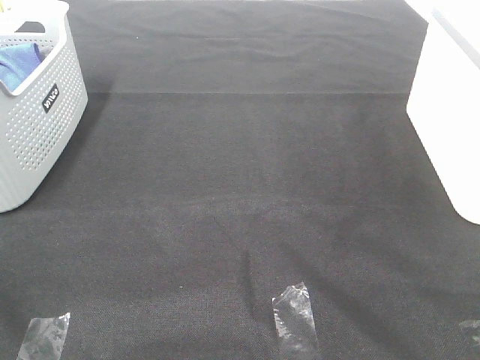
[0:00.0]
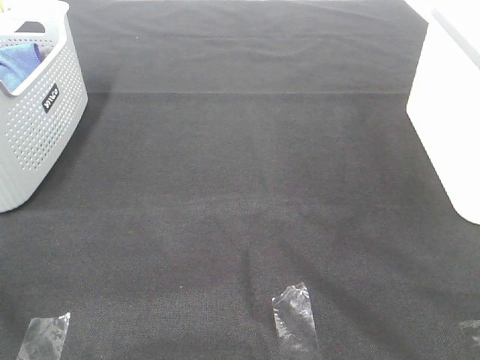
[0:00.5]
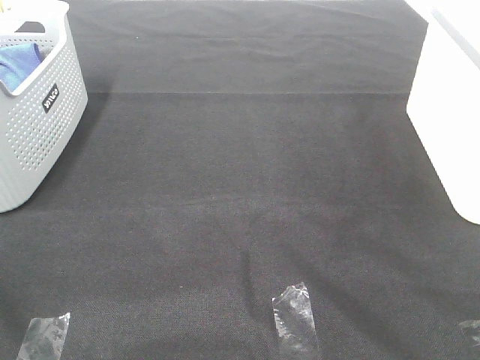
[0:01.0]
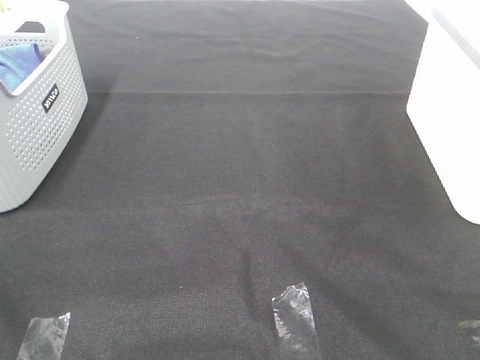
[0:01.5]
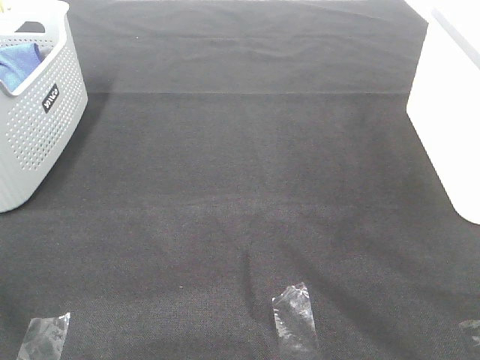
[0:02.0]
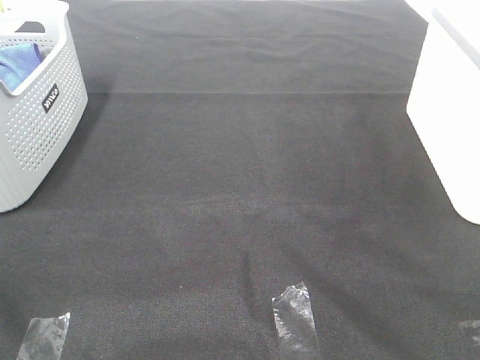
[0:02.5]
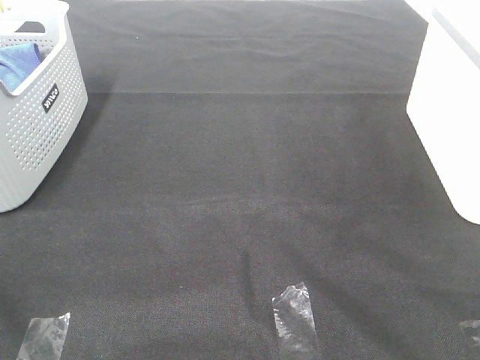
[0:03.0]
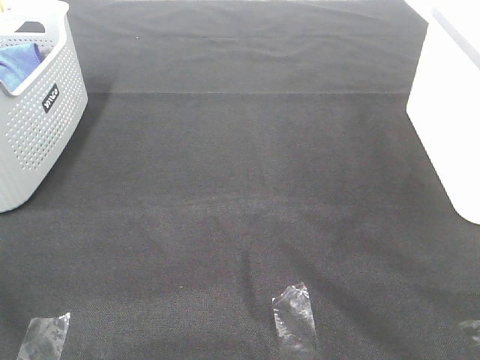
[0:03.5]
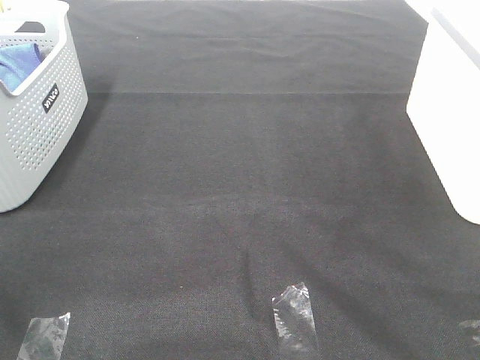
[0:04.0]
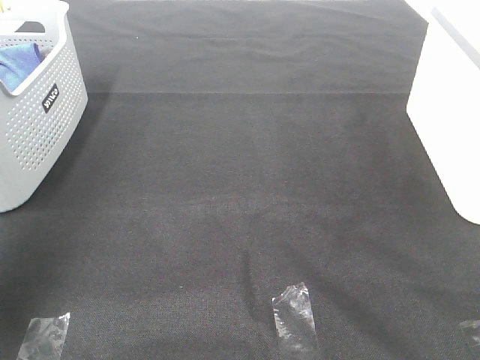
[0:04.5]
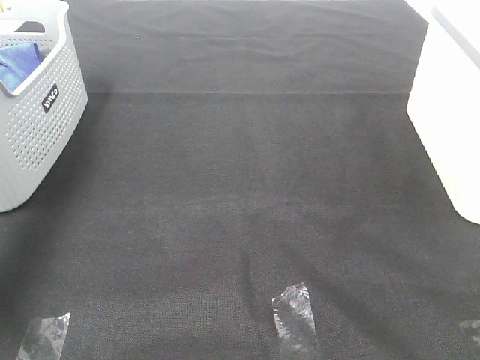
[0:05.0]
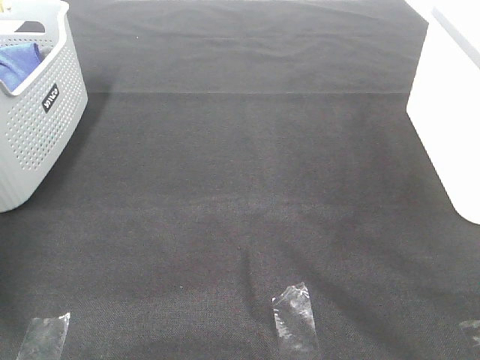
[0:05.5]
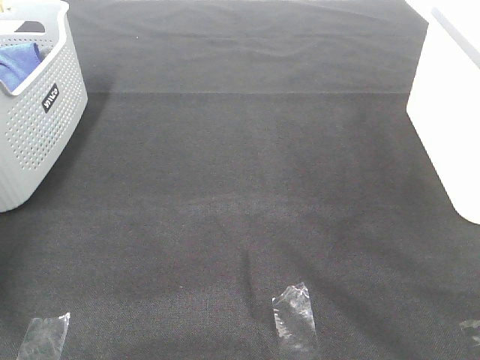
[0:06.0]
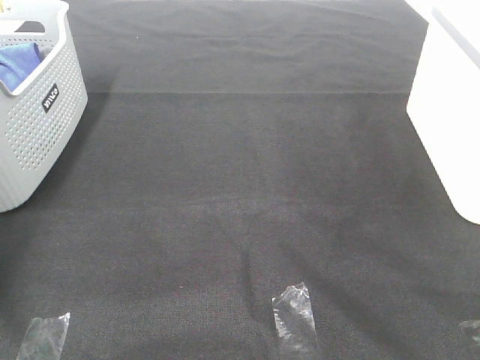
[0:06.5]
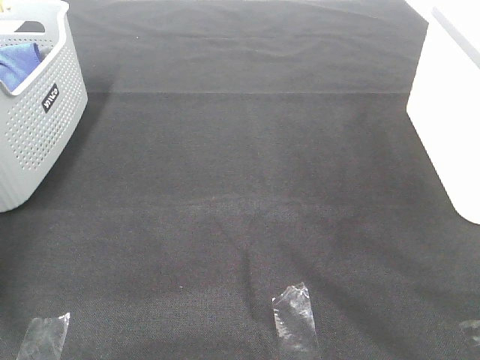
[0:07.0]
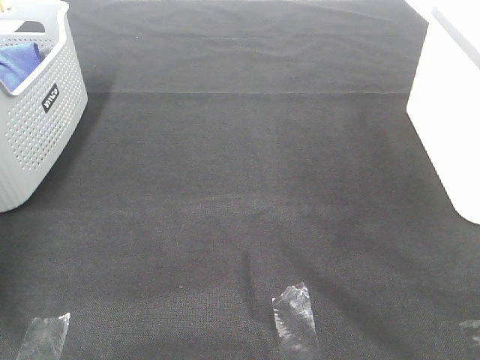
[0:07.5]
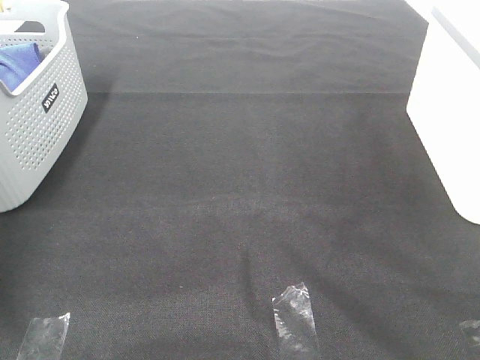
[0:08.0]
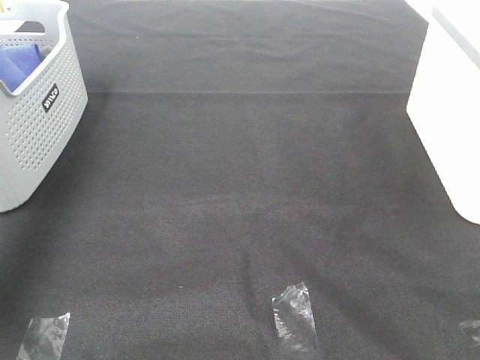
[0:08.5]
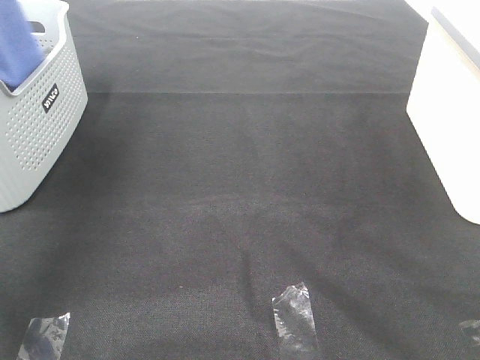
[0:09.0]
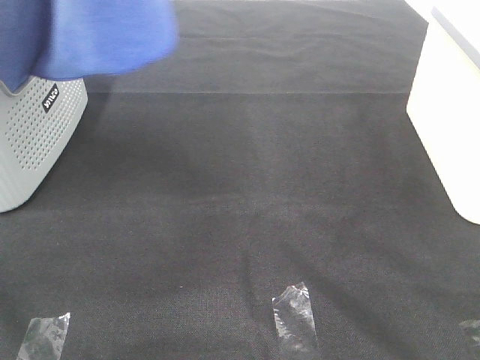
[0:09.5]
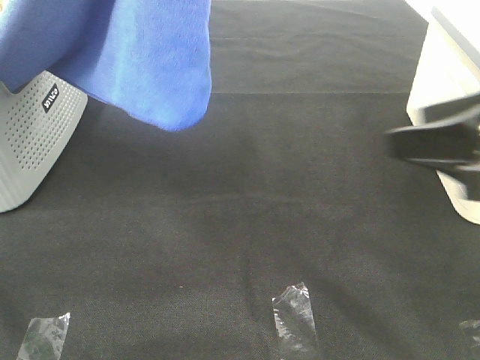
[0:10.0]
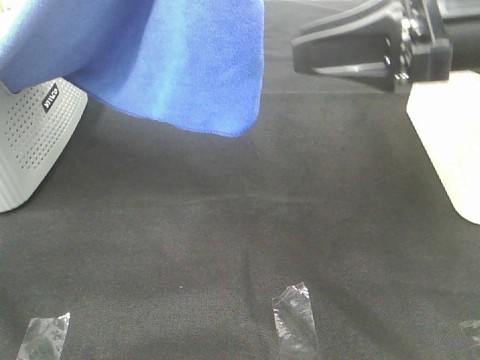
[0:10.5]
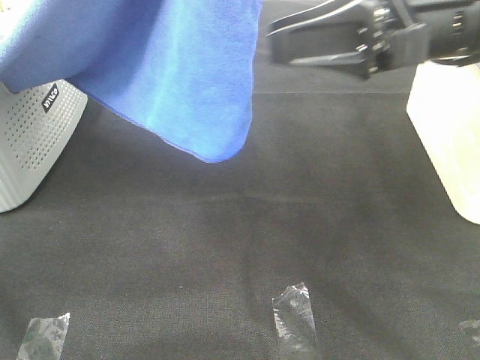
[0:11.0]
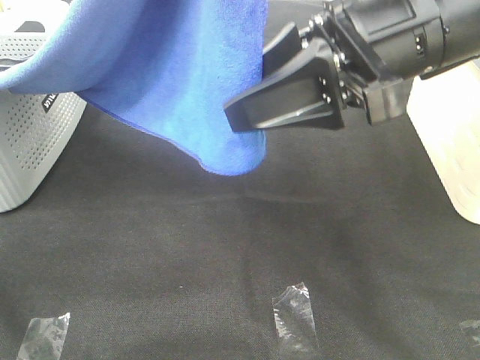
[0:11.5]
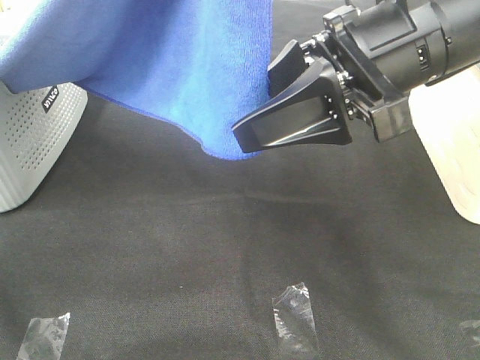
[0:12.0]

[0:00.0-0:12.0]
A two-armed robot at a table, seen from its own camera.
Task of the whole recording: Remove the towel and place it.
0:00.0 to 0:02.0: The two grippers keep their place.
0:04.0 to 0:06.0: The left gripper heads forward, covering some 50 cm.
0:08.0 to 0:10.0: The left gripper shifts about 50 cm to the right, upward and backward. Meanwhile the right gripper goes about 20 cm forward.
0:10.0 to 0:12.0: The right gripper is displaced to the left and forward by about 15 cm.

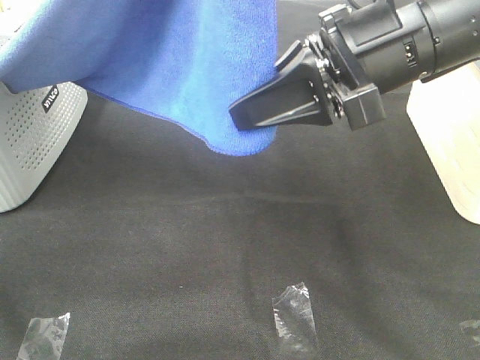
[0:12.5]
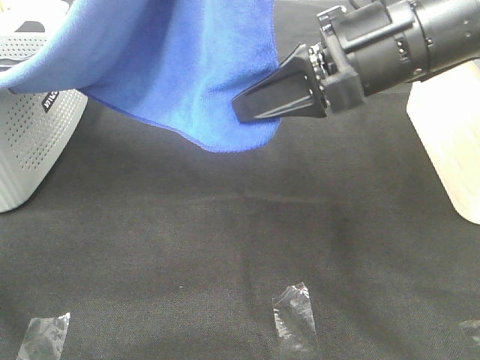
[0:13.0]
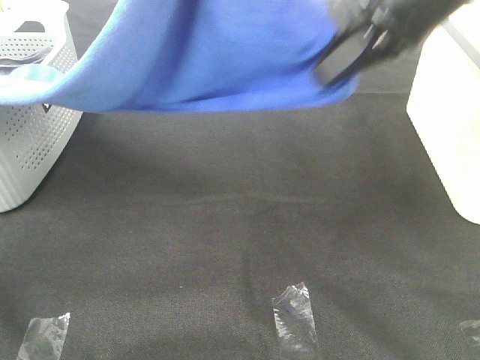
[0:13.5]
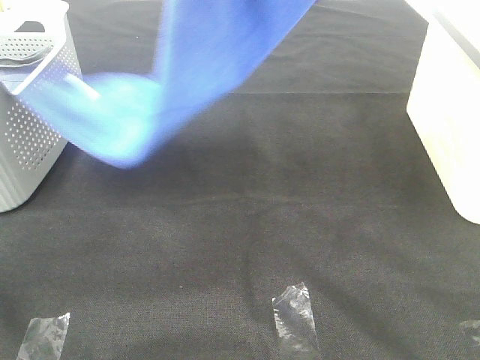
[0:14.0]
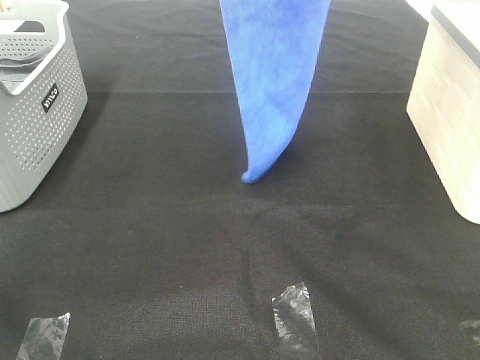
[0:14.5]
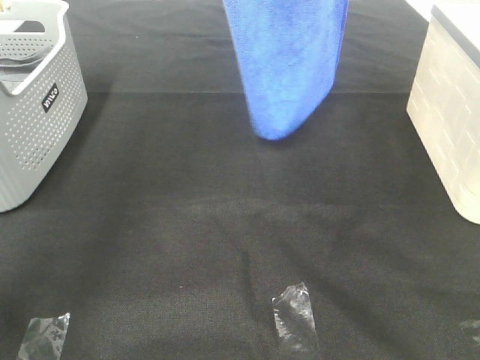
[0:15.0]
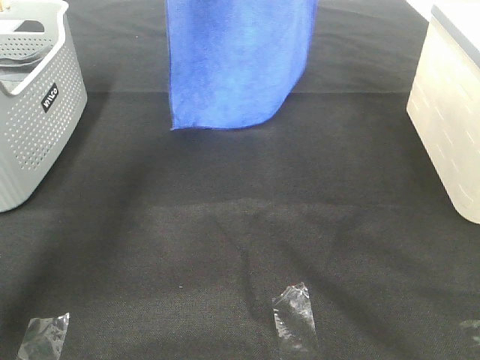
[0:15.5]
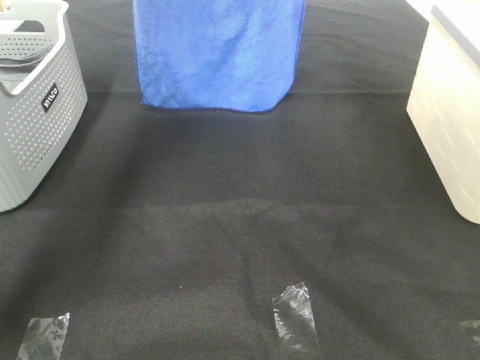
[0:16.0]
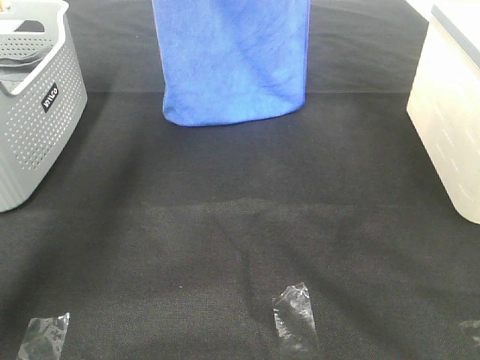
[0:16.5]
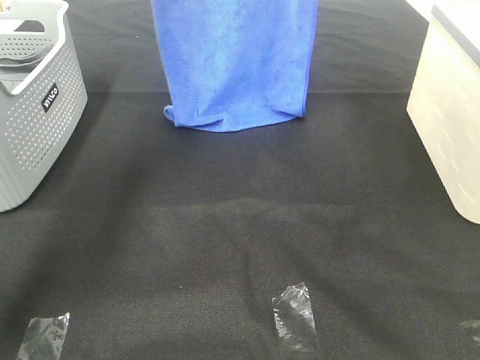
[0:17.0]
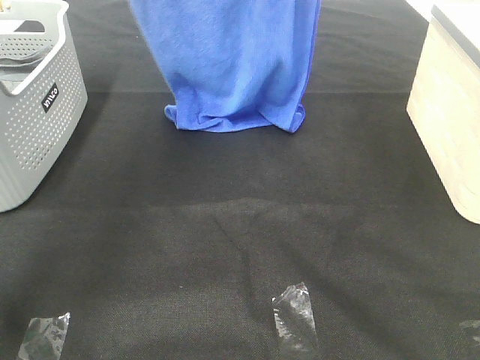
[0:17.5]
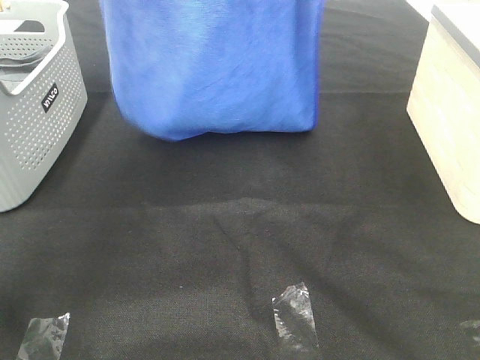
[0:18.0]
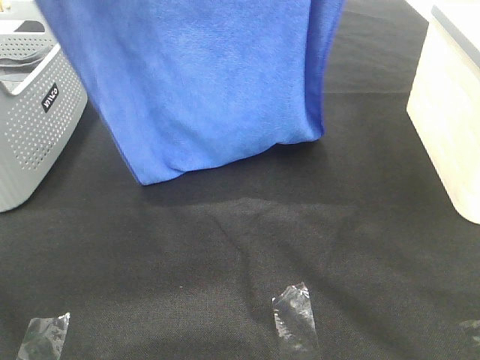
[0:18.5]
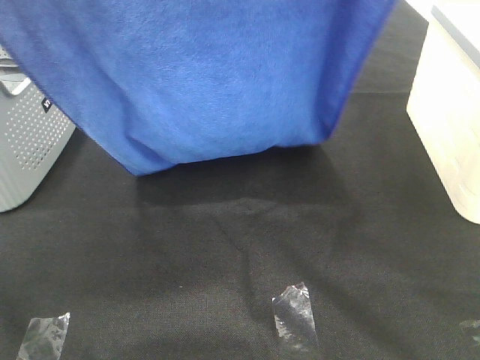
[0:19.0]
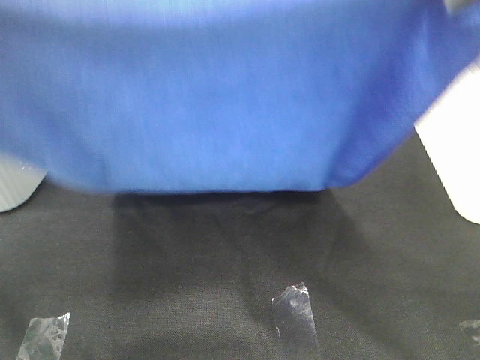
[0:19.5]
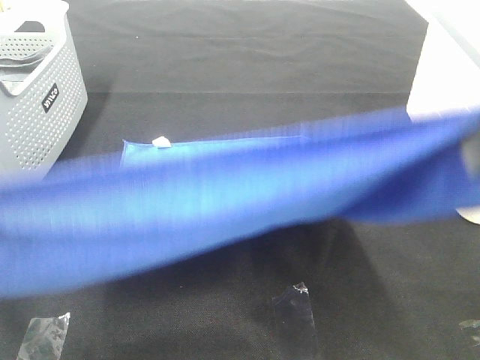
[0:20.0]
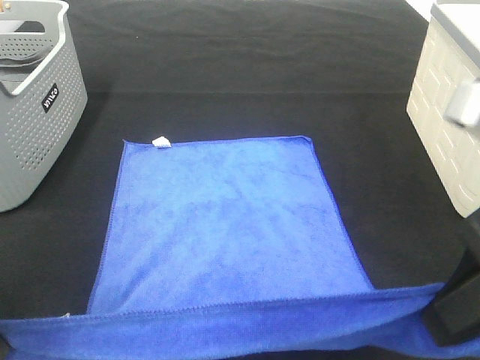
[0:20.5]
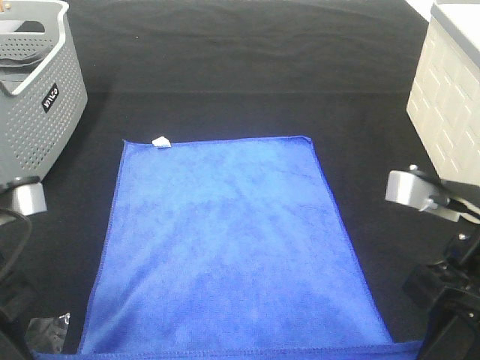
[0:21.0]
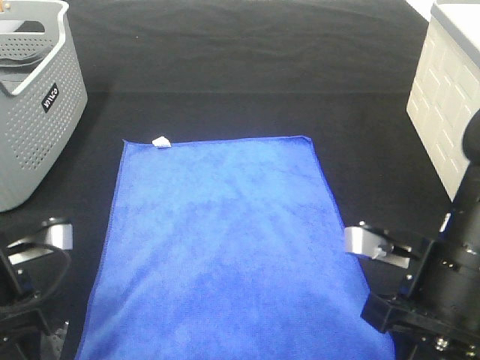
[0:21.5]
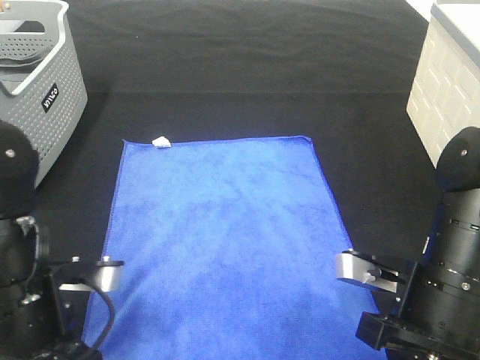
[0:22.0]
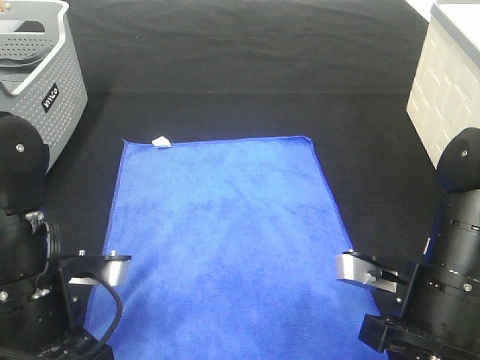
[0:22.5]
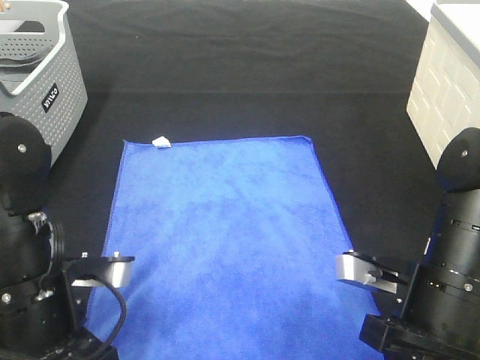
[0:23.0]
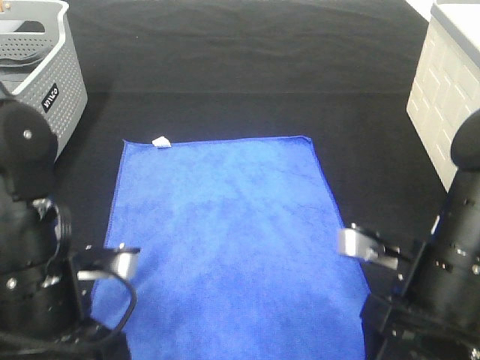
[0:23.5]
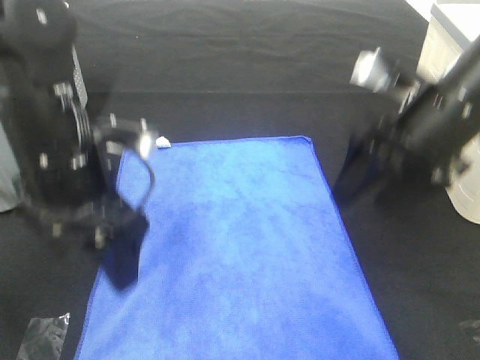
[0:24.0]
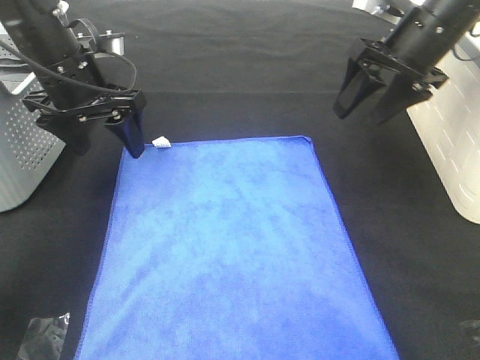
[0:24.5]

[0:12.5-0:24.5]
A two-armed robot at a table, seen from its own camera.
Task of the whole recording: Remove the towel and place it.
Step, 0:13.5 to 0:18.5: Left hand: spread the blue towel flat on the table.
Step, 0:13.5 to 0:18.5: Right hand: spread the blue towel flat on the table.
0:12.5 to 0:14.5: The right gripper moves upward and forward, approximately 25 cm. Meanwhile the left gripper goes about 15 cm forward.
0:14.5 to 0:16.5: The right gripper moves forward and downward, approximately 15 cm; the left gripper travels forward by approximately 15 cm.
0:16.5 to 0:18.5: The two grippers go about 20 cm backward.
0:18.5 to 0:20.5: The two grippers go approximately 25 cm downward and backward.
0:20.5 to 0:22.5: The right gripper goes approximately 15 cm downward. Meanwhile the left gripper is displaced downward and to the right by approximately 15 cm.
0:22.5 to 0:24.5: The left gripper moves forward, about 25 cm, and opens up, while the right gripper travels forward and upward by about 25 cm, and opens.

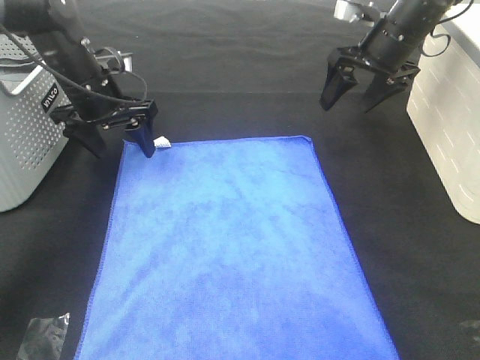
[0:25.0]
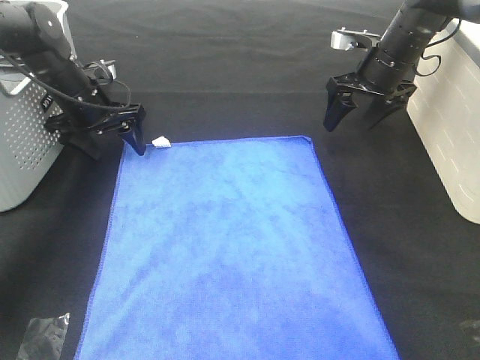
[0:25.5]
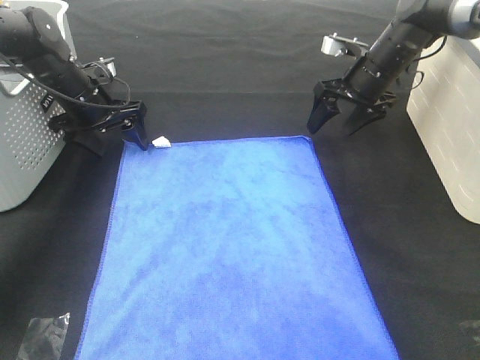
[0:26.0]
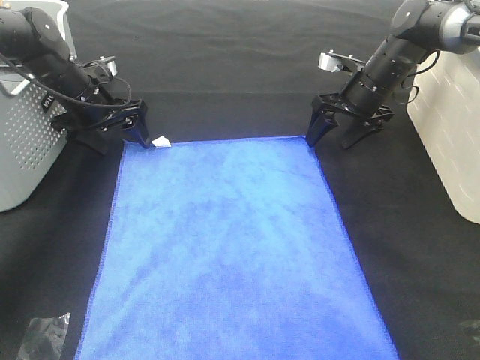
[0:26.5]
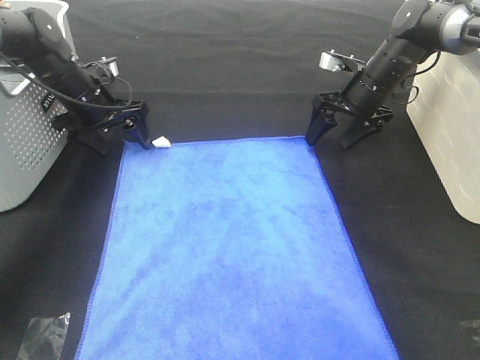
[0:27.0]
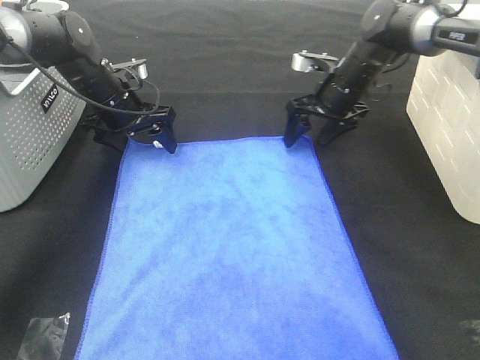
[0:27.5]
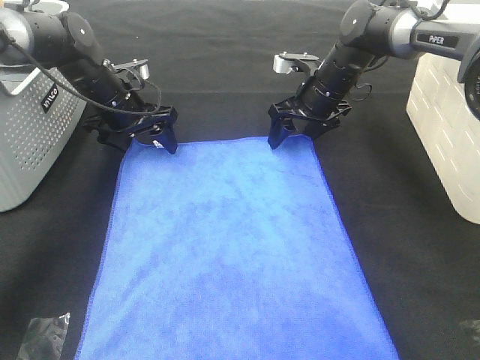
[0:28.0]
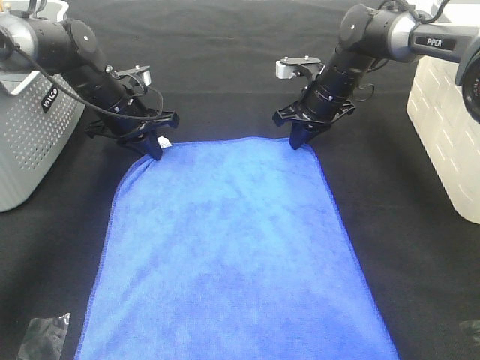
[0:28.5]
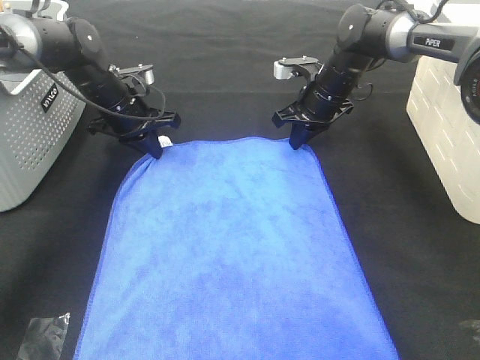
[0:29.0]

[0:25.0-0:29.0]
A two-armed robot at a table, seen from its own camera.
Task of the whole recording: Remove the towel and place it.
0:25.0 to 0:27.0: The right gripper moves downward, roughly 10 cm; the left gripper changes place by roughly 5 cm.
0:27.0 to 0:29.0: The right gripper moves to the left, about 5 cm, and closes up. The left gripper closes up.
